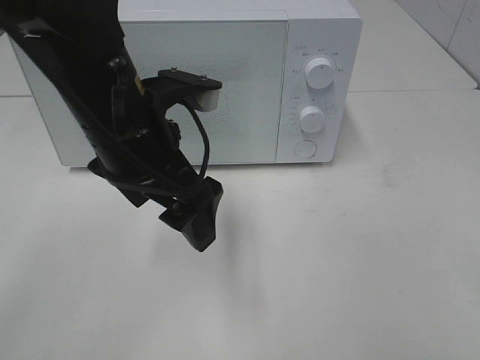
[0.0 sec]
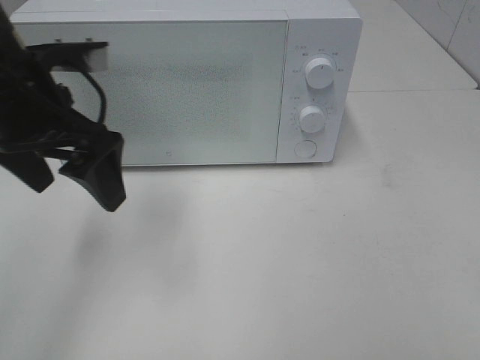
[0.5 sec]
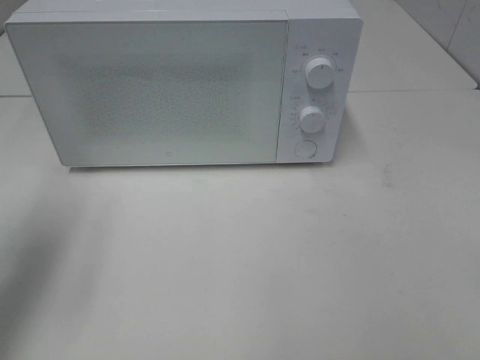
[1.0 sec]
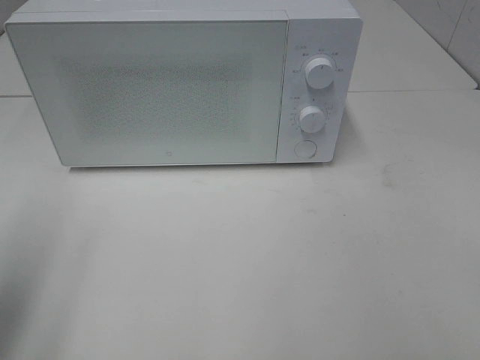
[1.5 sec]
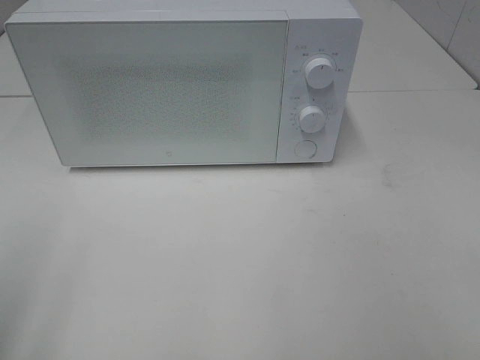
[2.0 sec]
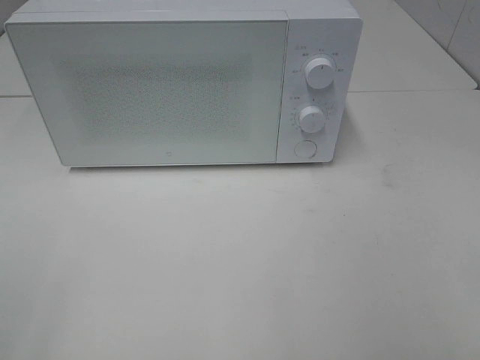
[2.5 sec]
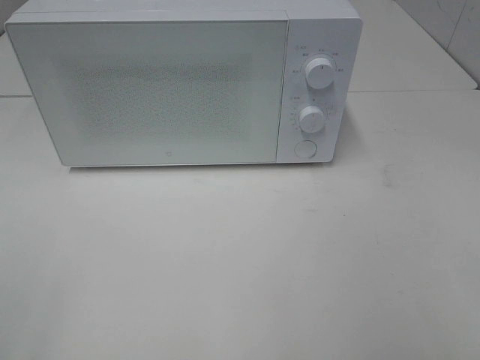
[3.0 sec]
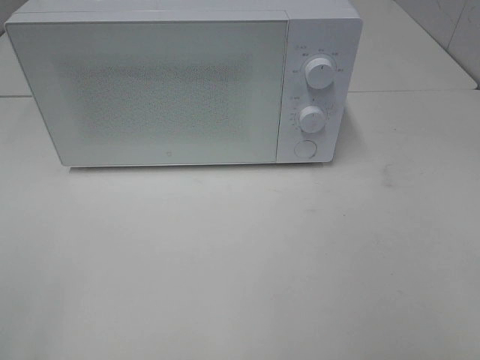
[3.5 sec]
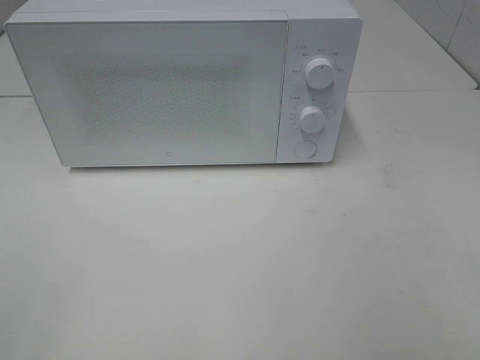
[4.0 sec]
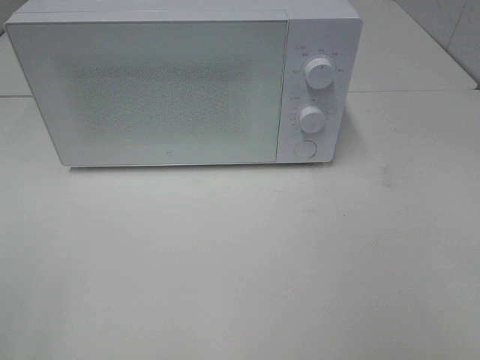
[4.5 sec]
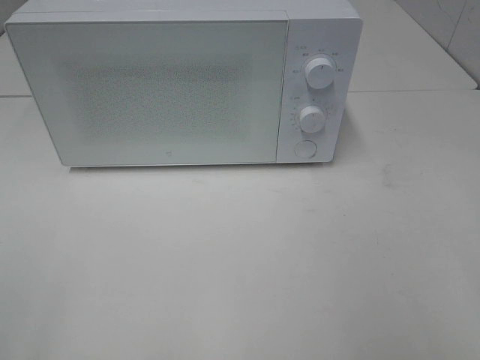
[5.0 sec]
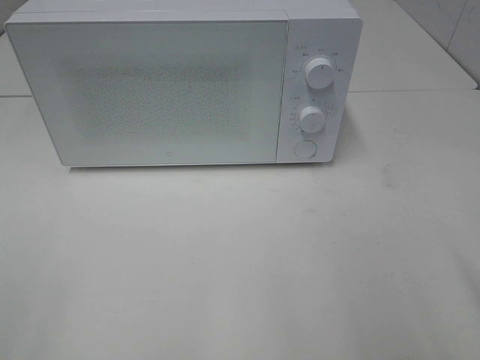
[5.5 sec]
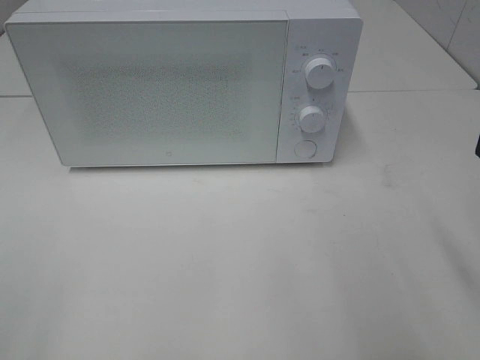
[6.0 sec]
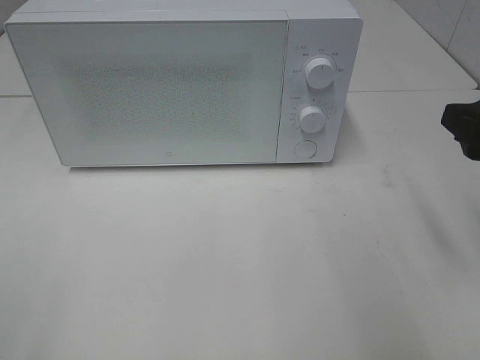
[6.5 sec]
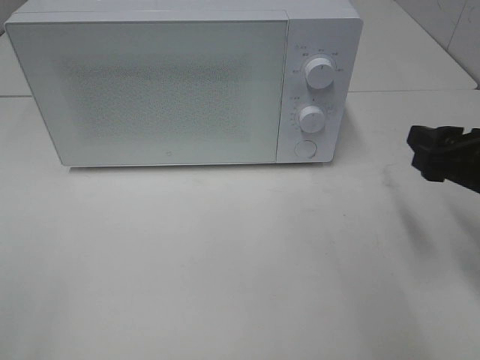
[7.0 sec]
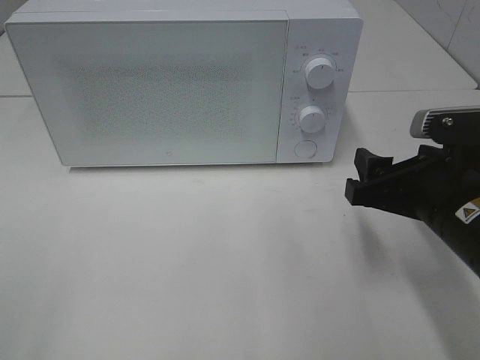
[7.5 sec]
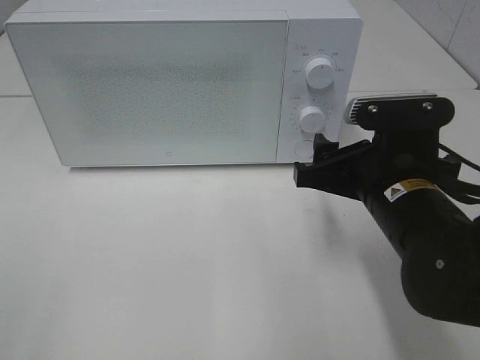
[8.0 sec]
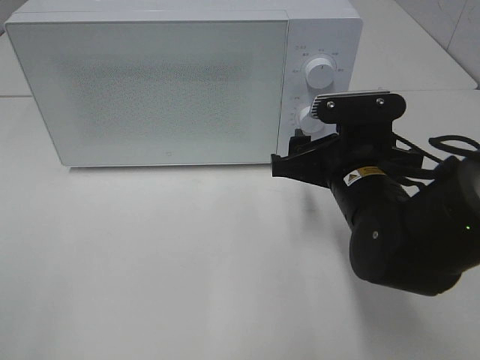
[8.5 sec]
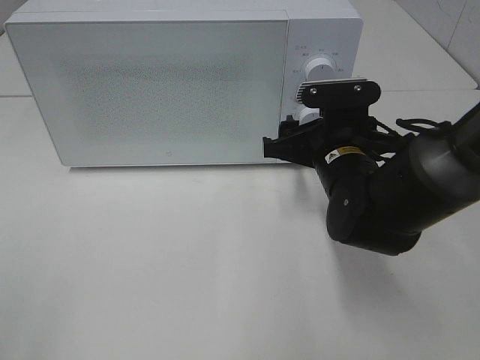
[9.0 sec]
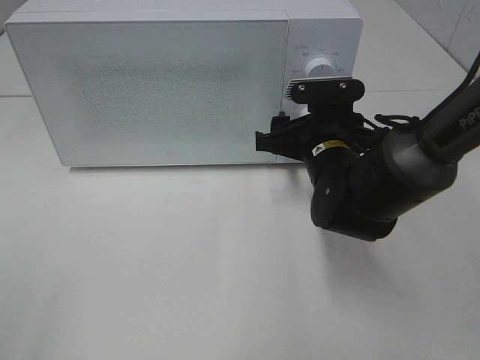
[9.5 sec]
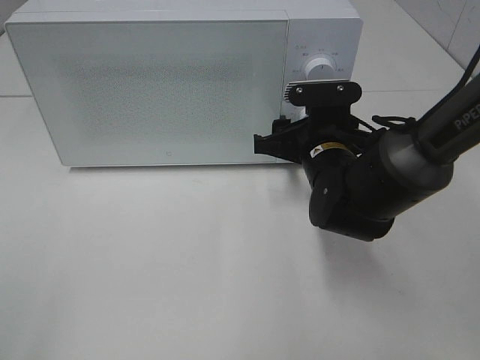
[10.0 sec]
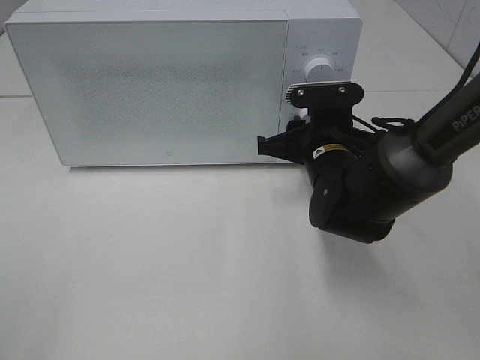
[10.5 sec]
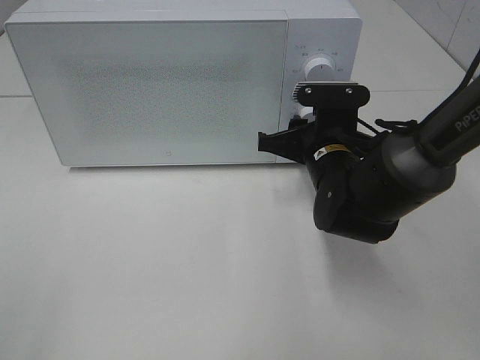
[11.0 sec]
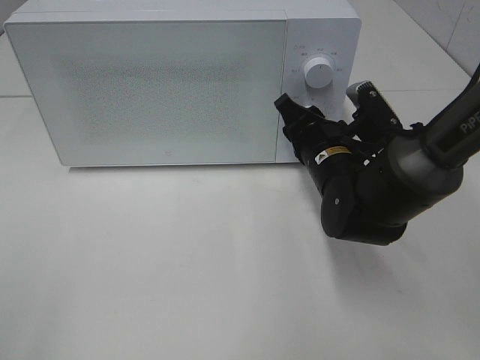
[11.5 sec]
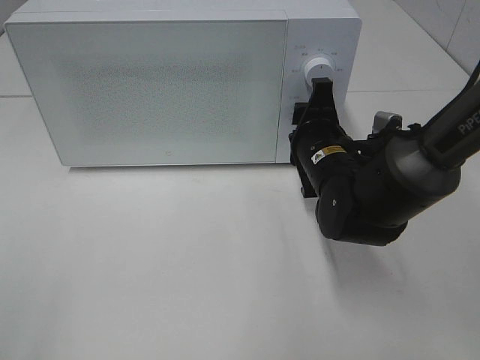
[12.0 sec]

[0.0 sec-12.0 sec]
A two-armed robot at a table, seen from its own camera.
Task of the whole recording: Heat the burger.
0.0 sec to 2.0 sec: The left gripper goes about 30 cm to the left and backward.
6.0 sec to 8.0 sec: The right gripper travels to the left, downward and forward by approximately 20 cm.
8.0 sec to 10.0 sec: The right gripper is displaced forward by roughly 10 cm.

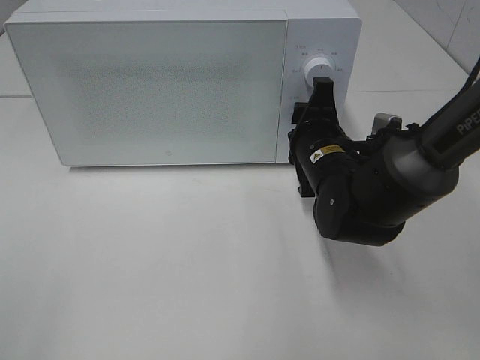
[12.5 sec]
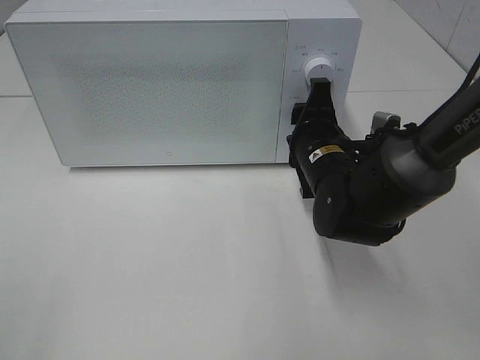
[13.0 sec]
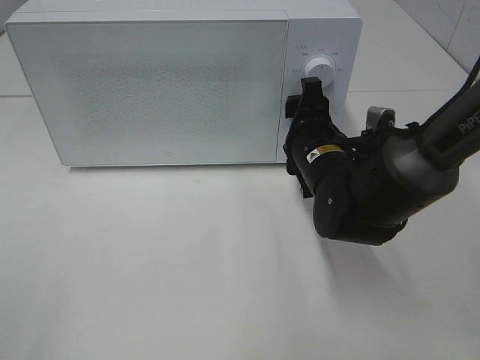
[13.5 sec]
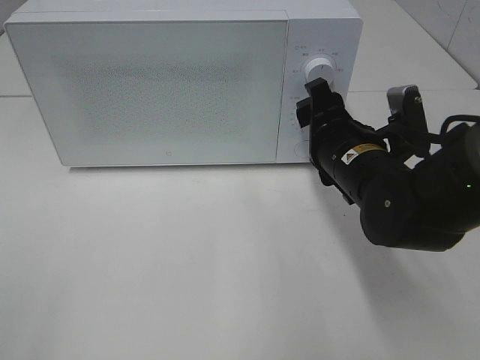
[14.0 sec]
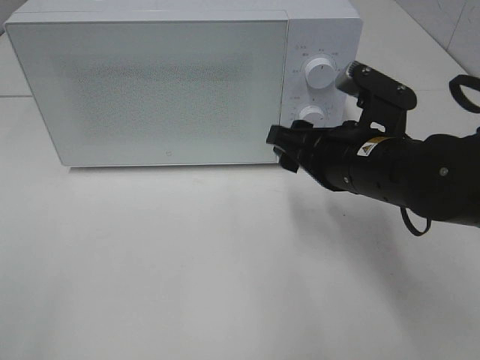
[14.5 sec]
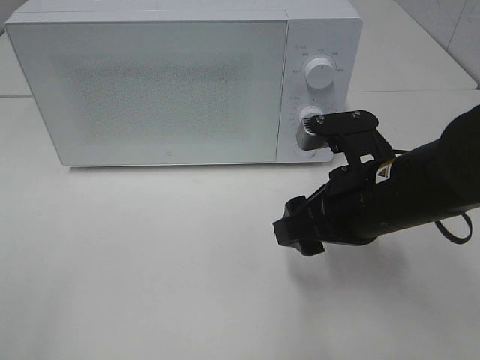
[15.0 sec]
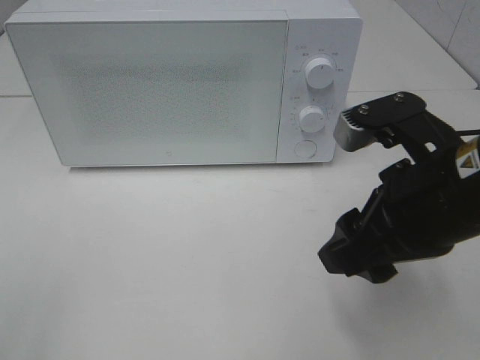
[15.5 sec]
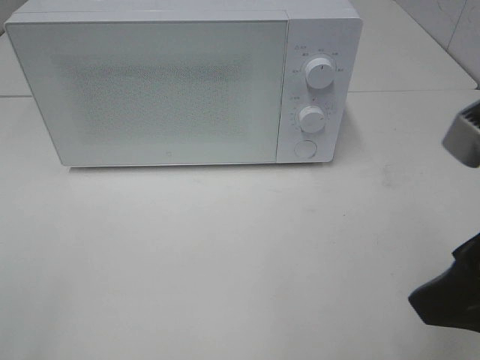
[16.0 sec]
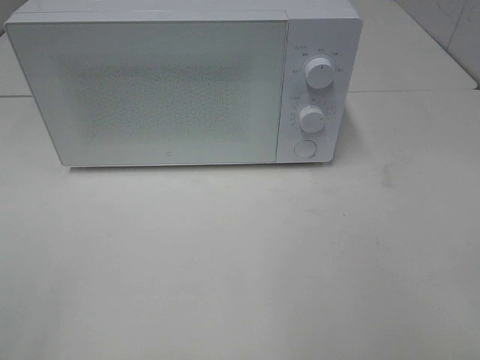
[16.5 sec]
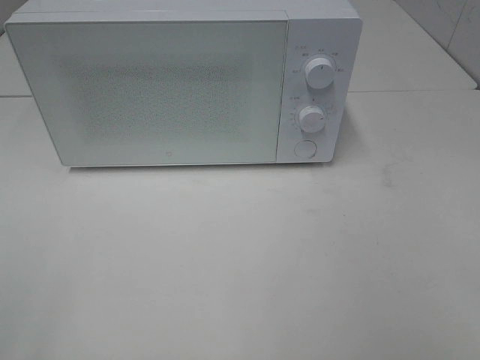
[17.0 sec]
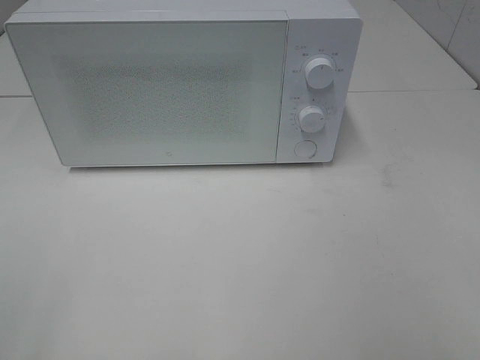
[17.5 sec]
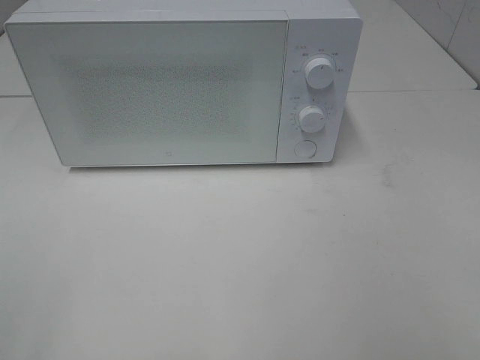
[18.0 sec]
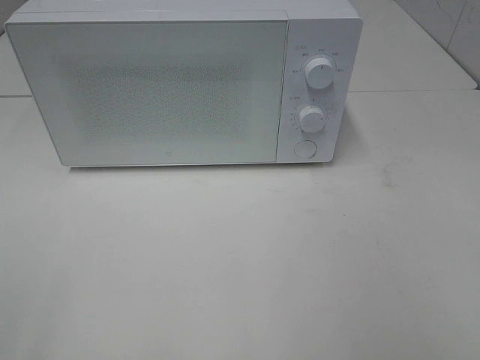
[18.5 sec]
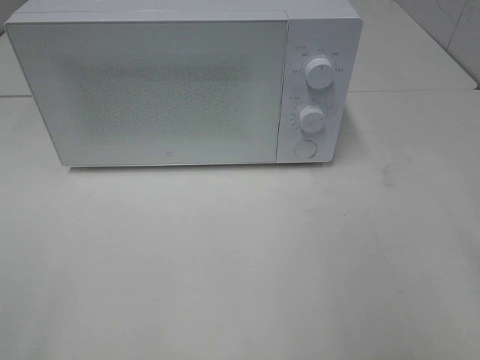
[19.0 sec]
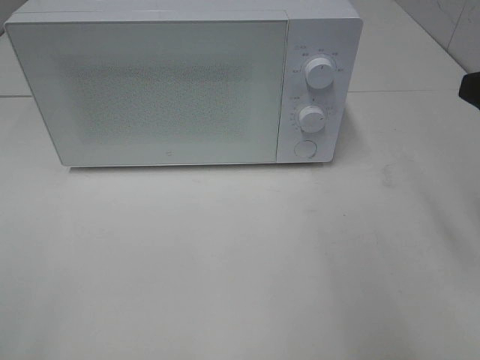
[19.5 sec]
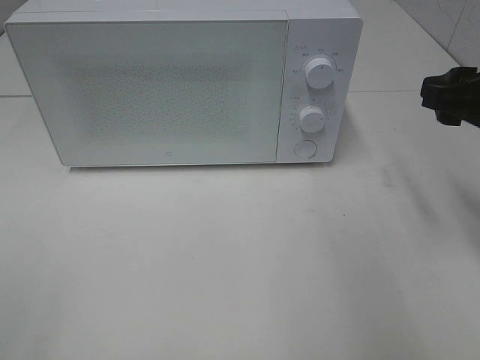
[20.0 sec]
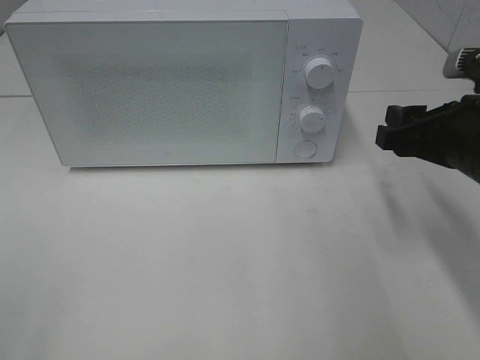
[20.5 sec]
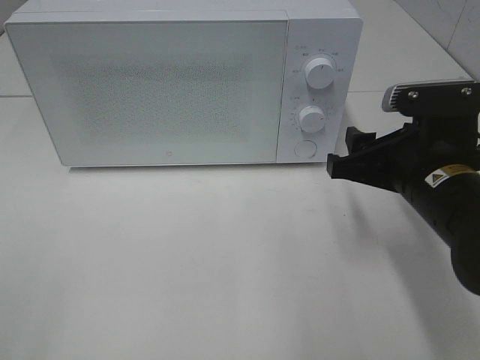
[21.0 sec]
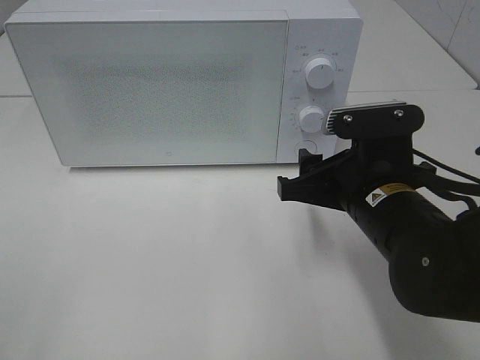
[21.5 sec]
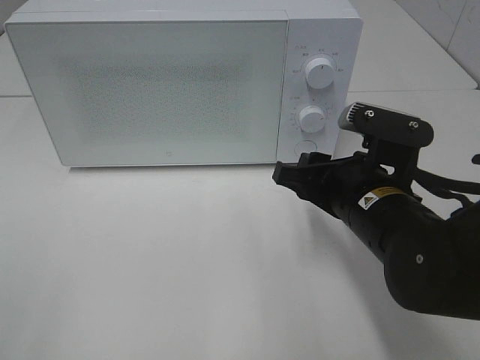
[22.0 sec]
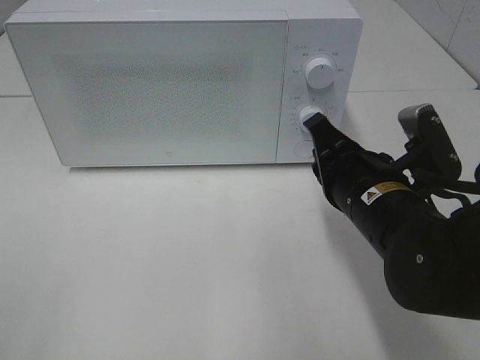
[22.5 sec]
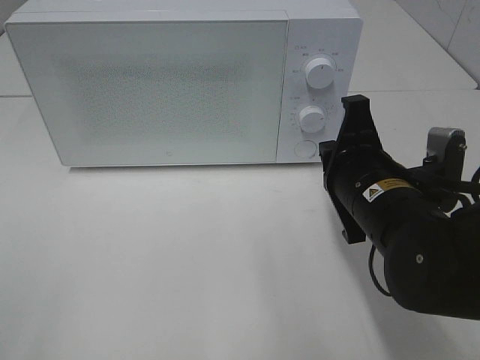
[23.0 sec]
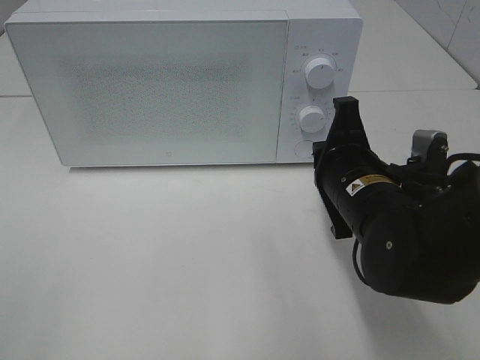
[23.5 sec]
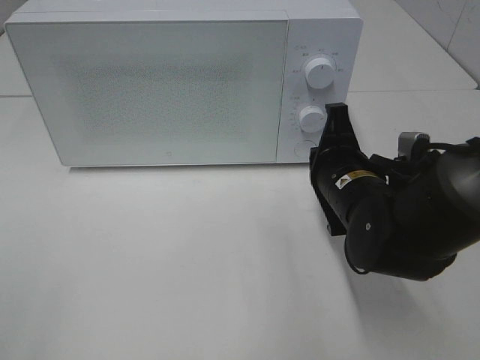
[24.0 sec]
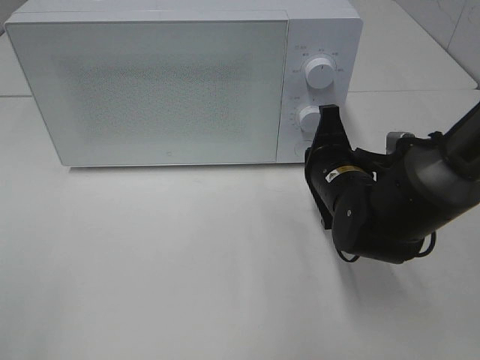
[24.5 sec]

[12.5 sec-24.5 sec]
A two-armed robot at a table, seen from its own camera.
Task of the whole recording: Heat the burger.
12.5 sec to 14.5 sec: The right gripper is displaced backward by roughly 5 cm.
14.5 sec to 16.5 sec: The right gripper heads backward, upward and to the right, covering approximately 25 cm.
18.5 sec to 20.5 sec: The right gripper goes about 25 cm forward and downward.
20.5 sec to 22.5 sec: The right gripper travels to the left by roughly 10 cm, and closes.
22.5 sec to 24.5 sec: The right gripper travels forward by some 5 cm.

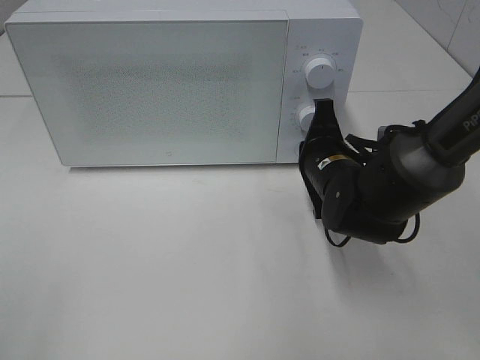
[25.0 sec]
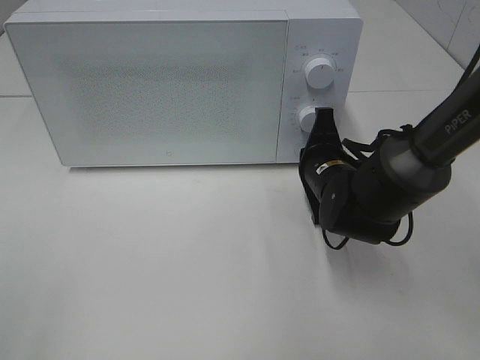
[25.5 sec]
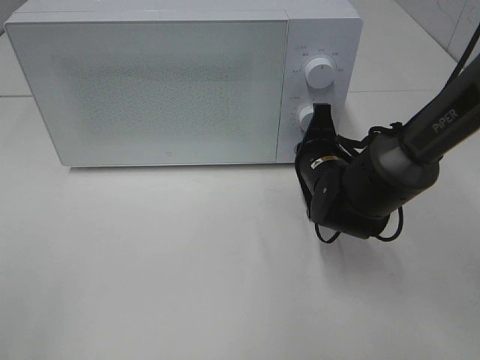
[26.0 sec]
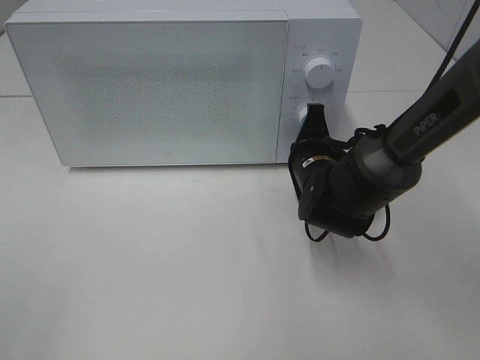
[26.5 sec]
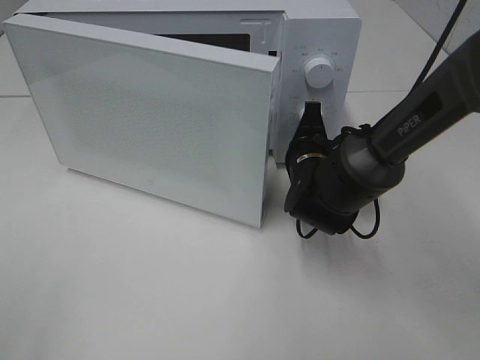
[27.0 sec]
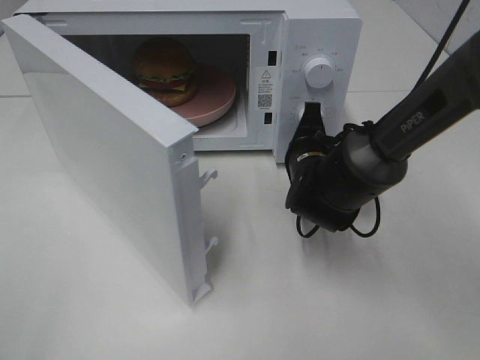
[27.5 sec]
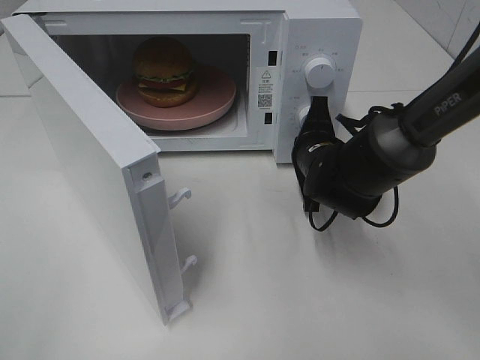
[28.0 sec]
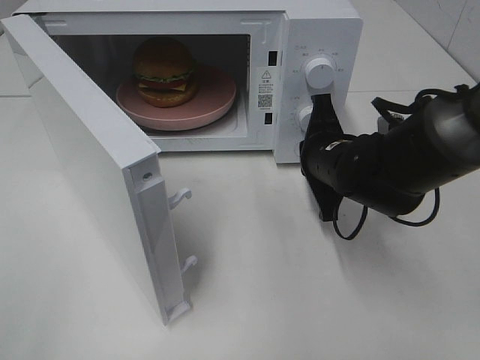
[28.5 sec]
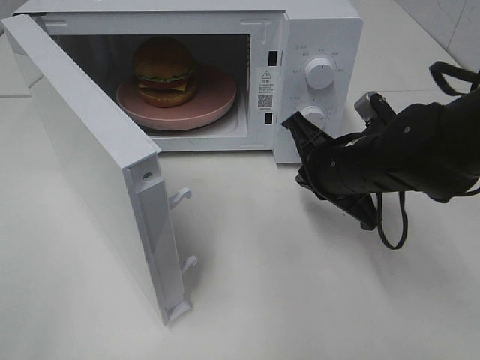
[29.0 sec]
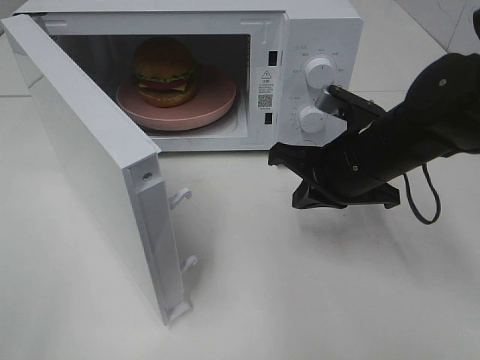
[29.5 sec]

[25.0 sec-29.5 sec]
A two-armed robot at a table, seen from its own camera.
Task of the whole recording: Heat the burger.
Step, 25.0 sec to 28.0 sec: Right hand: press the switch.
27.0 sec to 29.5 sec: The right gripper heads upward and backward, covering about 10 cm.
